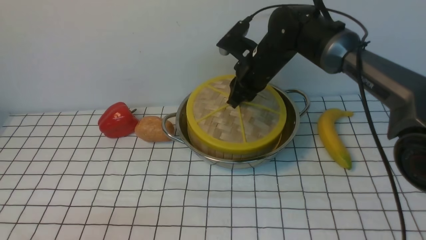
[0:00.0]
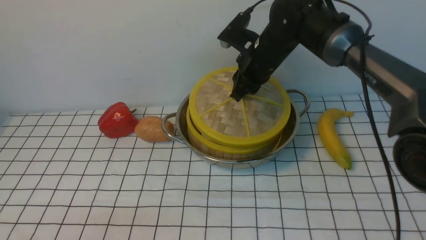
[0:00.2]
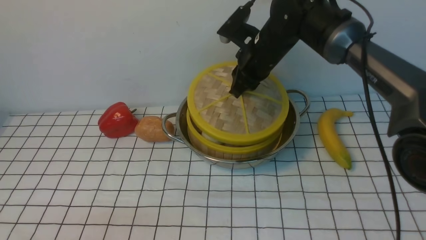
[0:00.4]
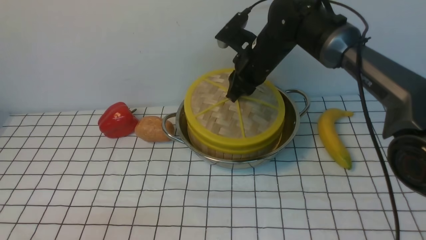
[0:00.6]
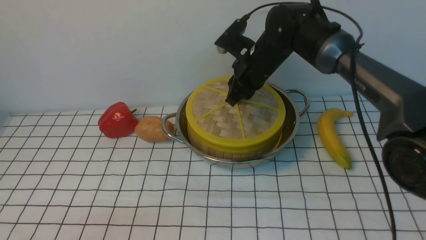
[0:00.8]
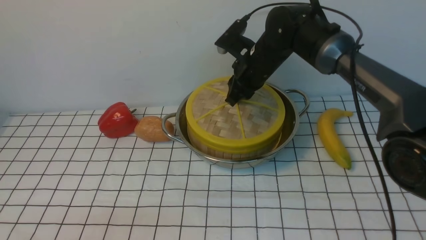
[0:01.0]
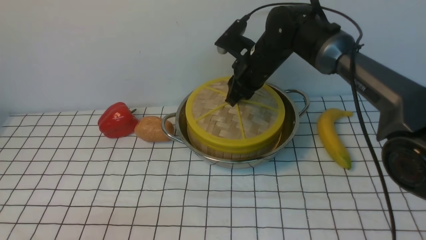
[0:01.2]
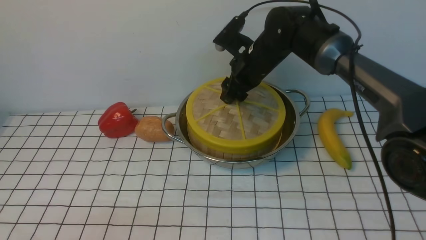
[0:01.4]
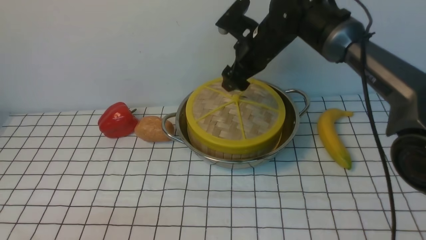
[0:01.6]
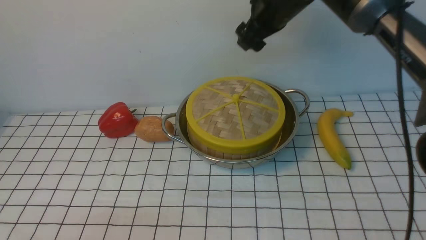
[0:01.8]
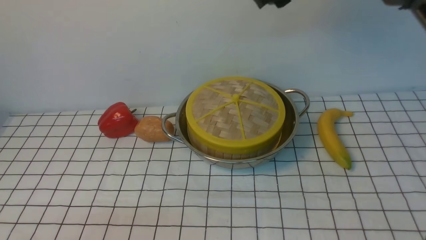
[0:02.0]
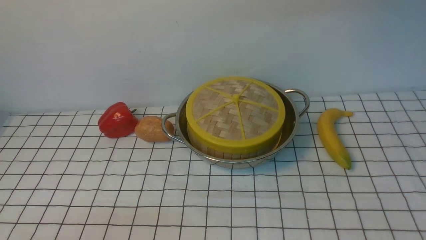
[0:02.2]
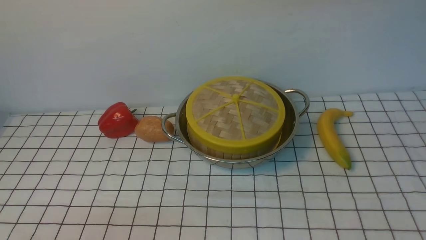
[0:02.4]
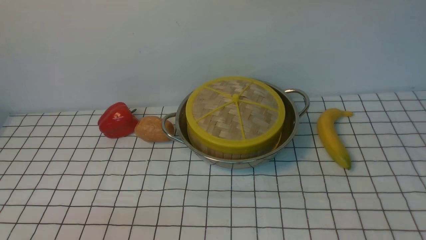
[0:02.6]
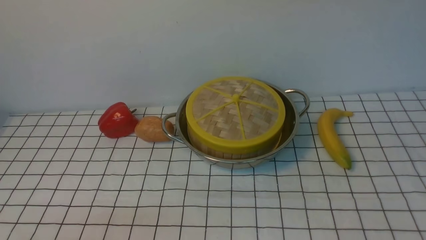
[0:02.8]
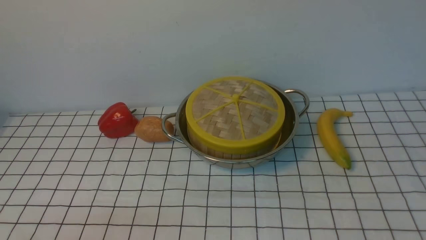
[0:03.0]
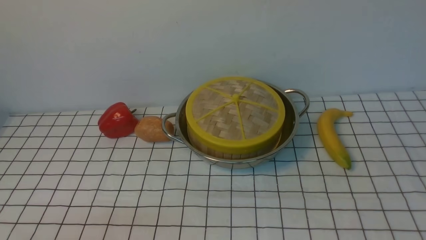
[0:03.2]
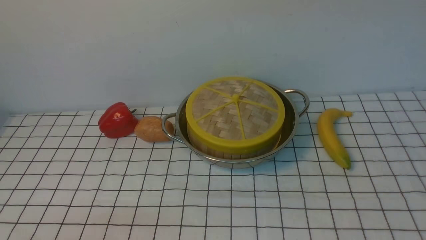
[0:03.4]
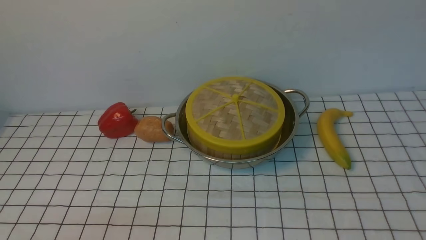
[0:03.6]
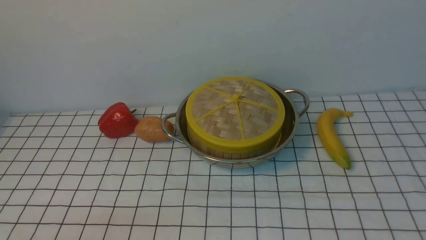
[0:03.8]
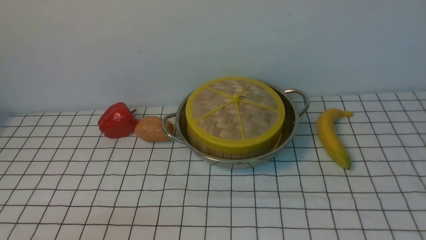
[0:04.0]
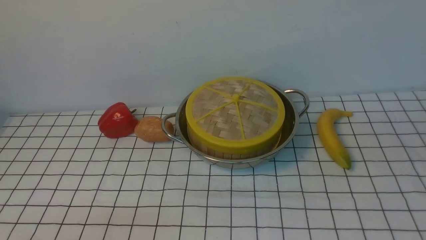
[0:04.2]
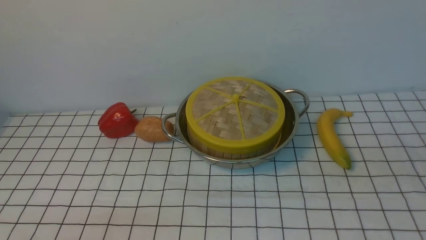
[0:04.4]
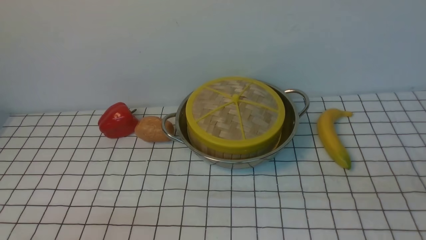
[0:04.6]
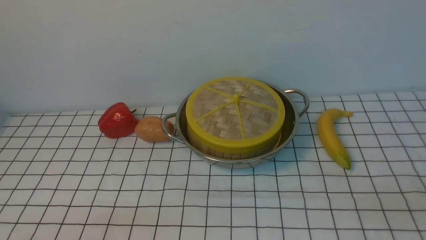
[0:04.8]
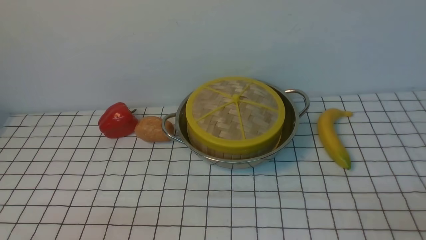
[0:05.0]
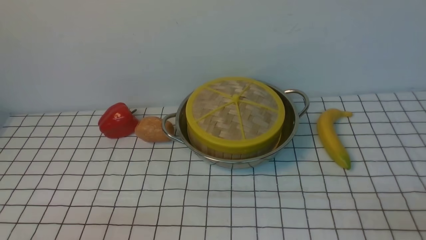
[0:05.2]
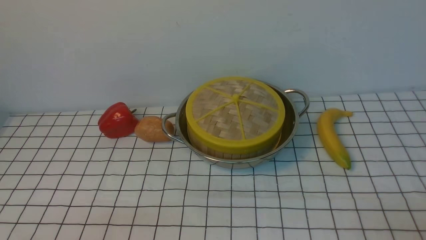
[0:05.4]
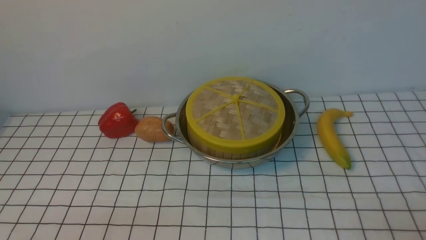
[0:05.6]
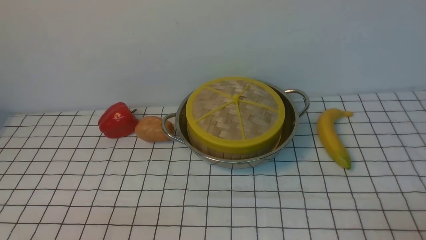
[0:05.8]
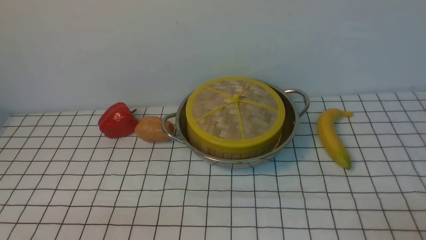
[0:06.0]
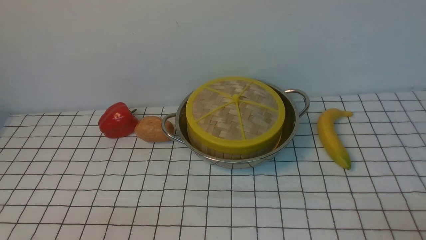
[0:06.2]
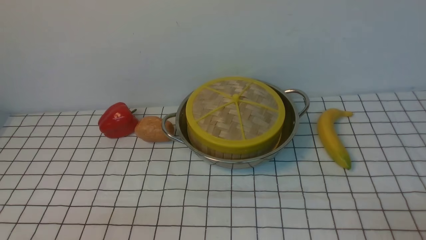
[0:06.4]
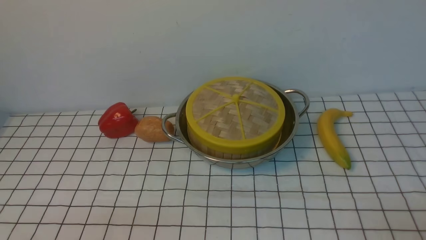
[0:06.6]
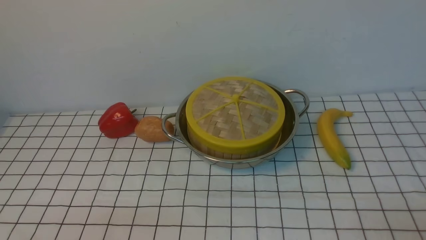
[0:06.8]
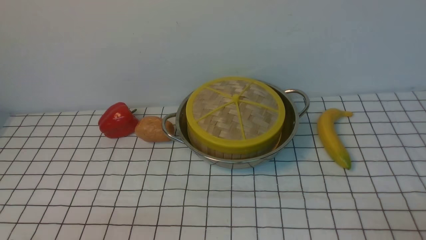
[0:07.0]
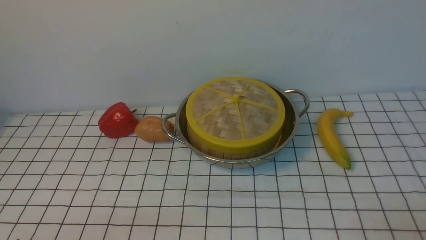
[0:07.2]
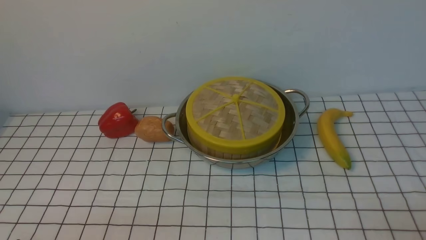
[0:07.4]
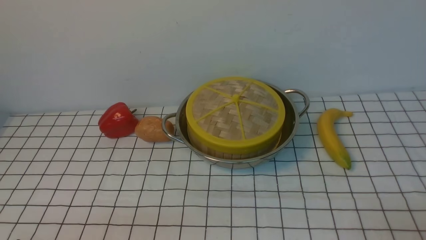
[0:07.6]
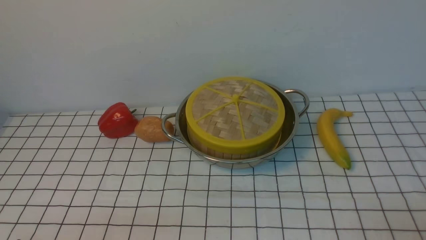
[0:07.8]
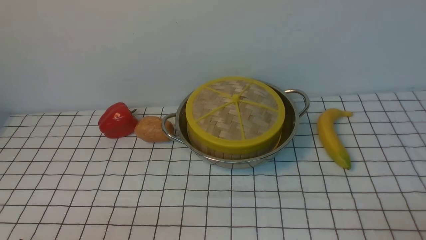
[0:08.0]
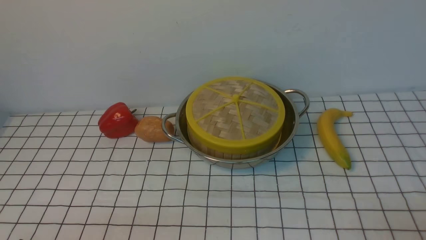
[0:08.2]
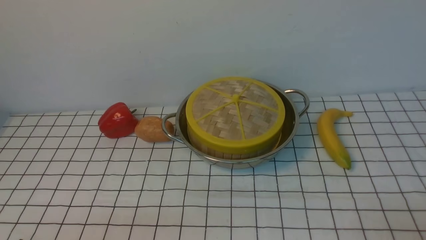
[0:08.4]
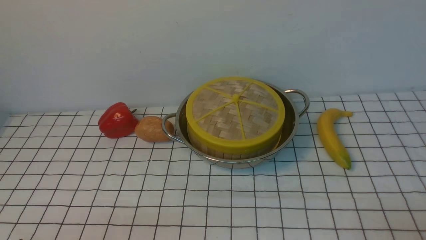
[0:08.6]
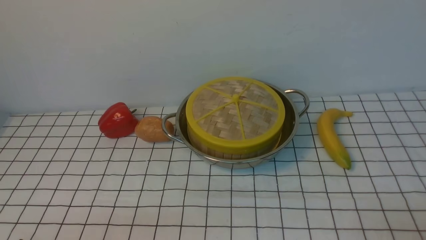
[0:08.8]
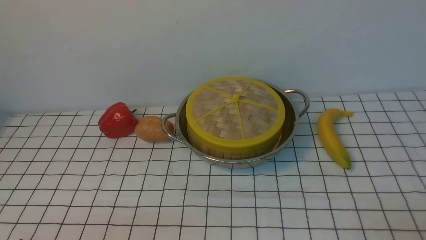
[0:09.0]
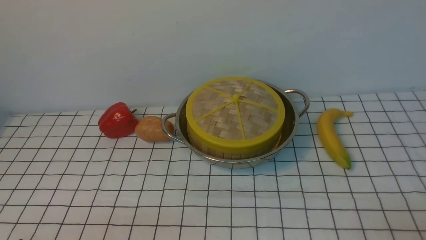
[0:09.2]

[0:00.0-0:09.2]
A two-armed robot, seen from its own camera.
Task of the whole recording: place the steamer in the pot on the white tablecloth, and put the lid on the steamer.
0:00.0 to 0:01.6: The right gripper opens its fingers.
0:01.6 to 0:03.0: The right gripper goes roughly 30 cm upward and backward, and closes its fingers.
0:07.6 to 0:09.2: The two grippers keep their place.

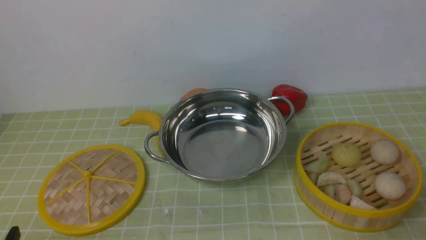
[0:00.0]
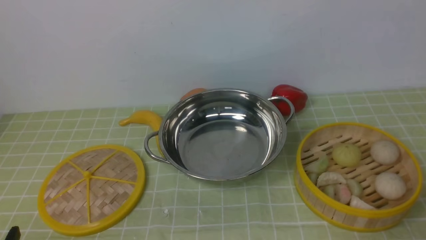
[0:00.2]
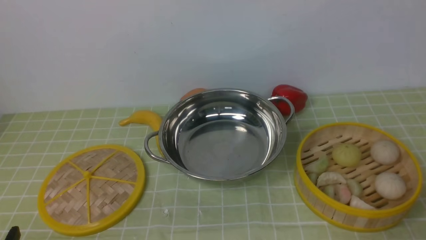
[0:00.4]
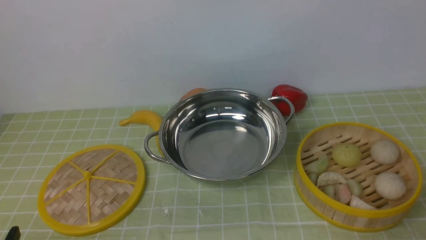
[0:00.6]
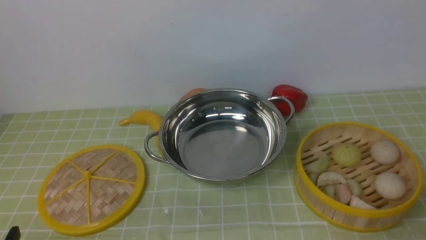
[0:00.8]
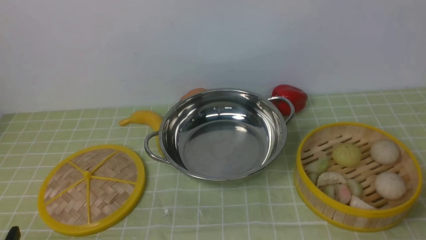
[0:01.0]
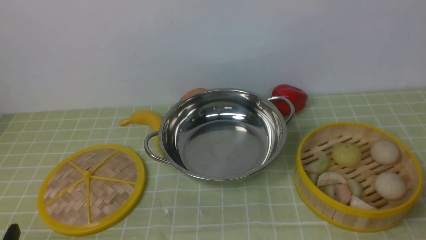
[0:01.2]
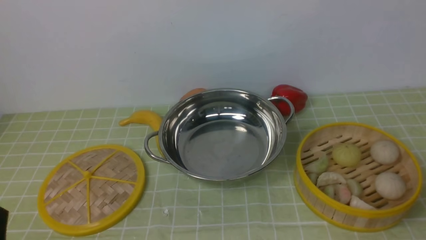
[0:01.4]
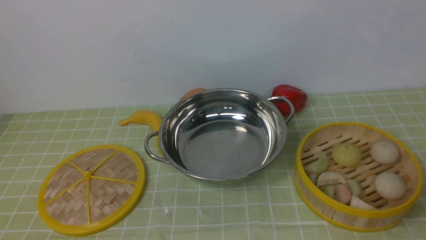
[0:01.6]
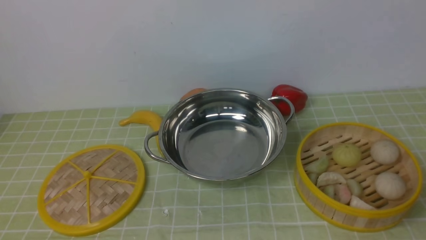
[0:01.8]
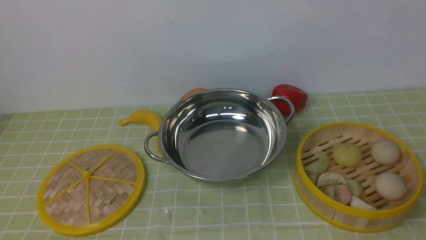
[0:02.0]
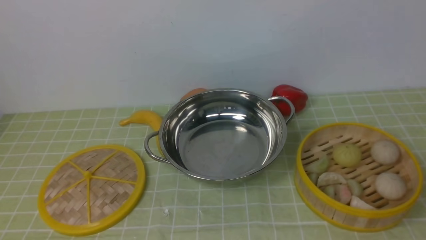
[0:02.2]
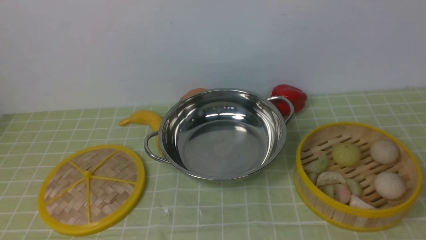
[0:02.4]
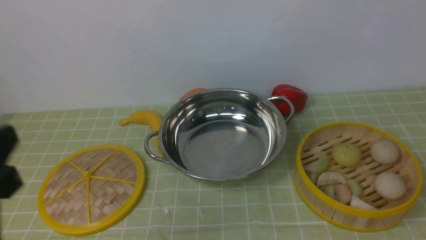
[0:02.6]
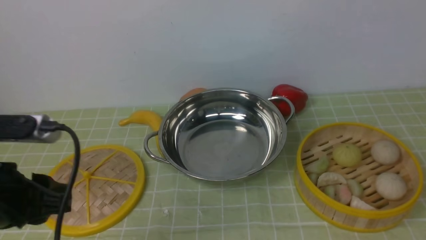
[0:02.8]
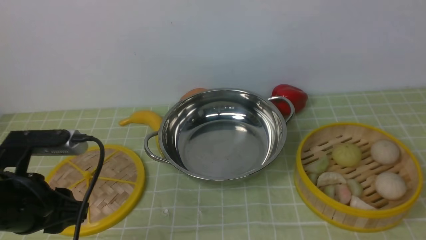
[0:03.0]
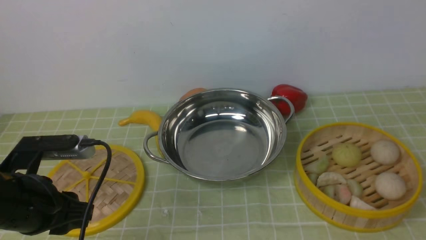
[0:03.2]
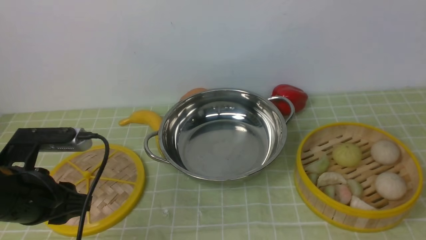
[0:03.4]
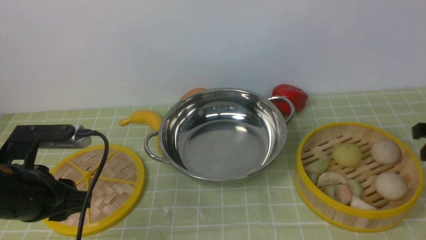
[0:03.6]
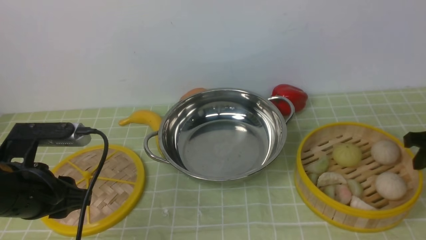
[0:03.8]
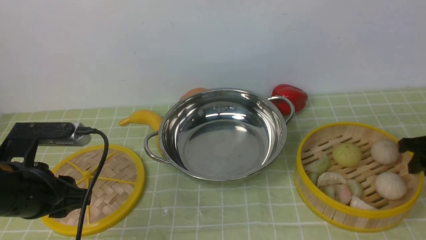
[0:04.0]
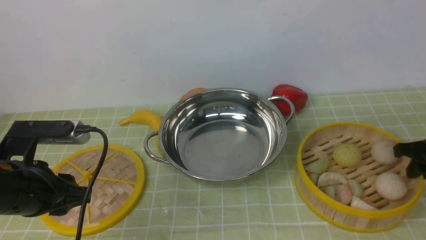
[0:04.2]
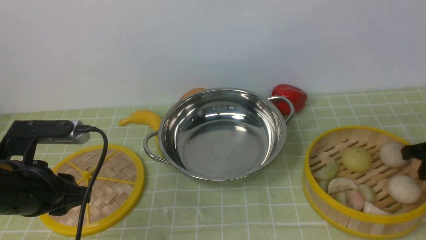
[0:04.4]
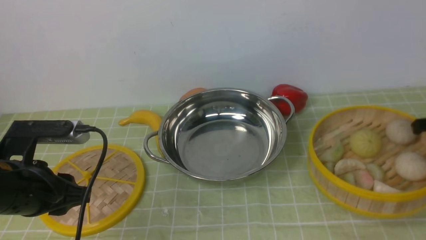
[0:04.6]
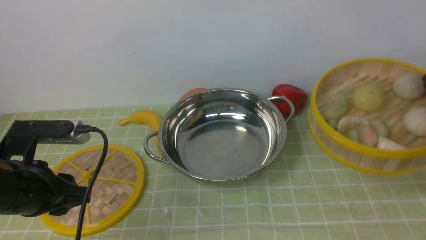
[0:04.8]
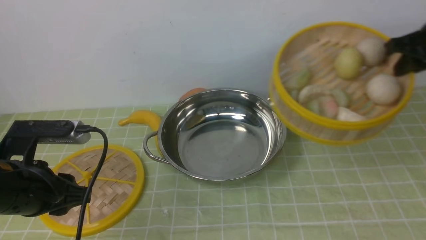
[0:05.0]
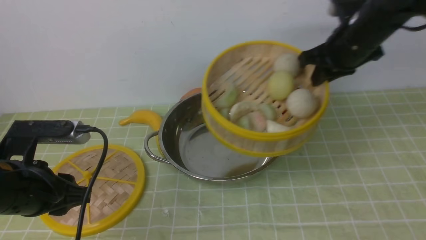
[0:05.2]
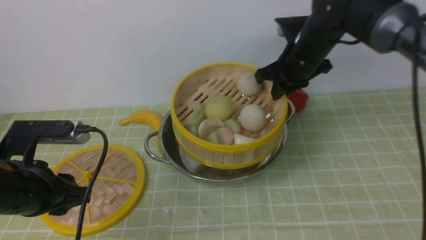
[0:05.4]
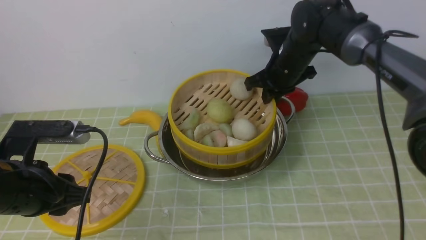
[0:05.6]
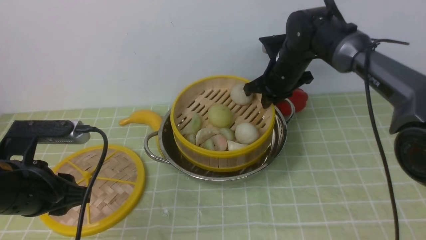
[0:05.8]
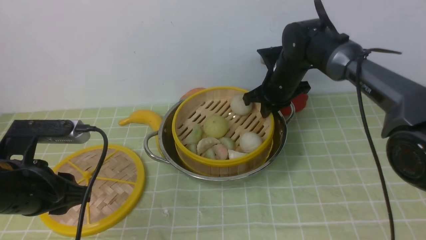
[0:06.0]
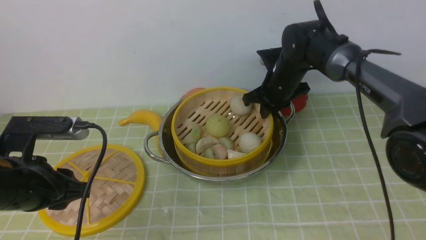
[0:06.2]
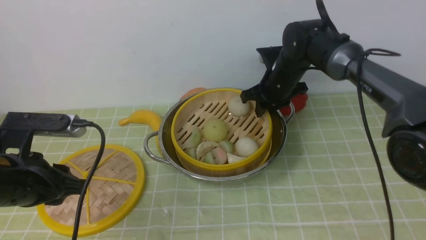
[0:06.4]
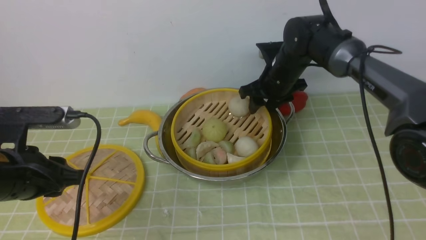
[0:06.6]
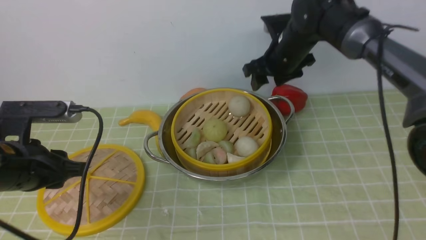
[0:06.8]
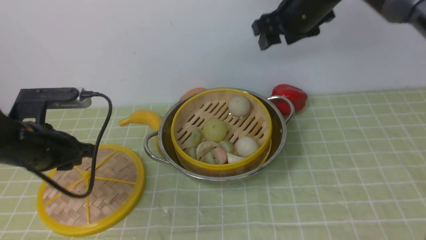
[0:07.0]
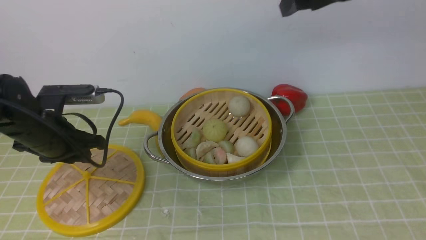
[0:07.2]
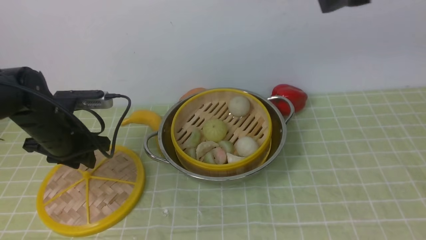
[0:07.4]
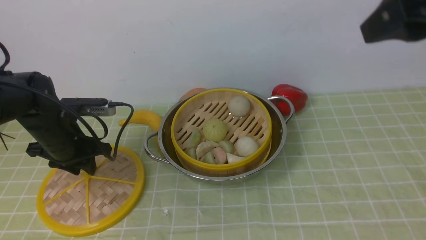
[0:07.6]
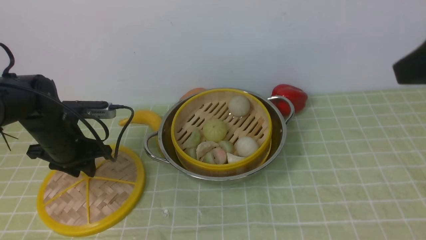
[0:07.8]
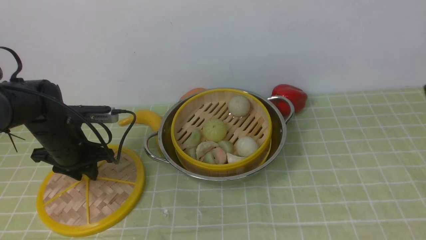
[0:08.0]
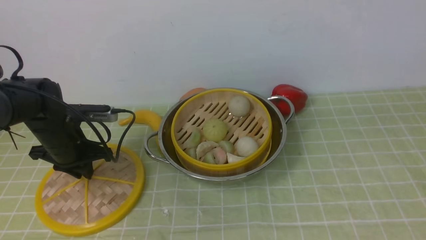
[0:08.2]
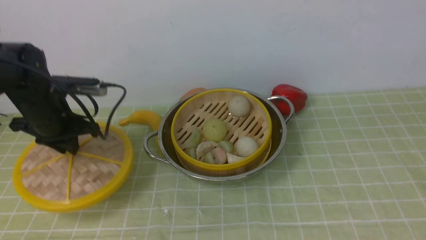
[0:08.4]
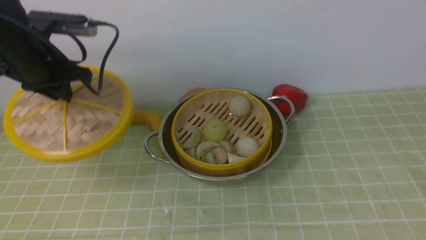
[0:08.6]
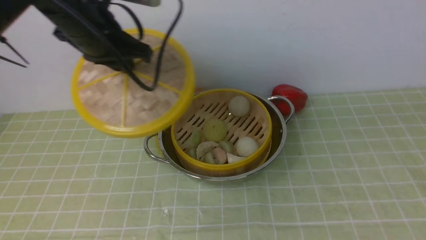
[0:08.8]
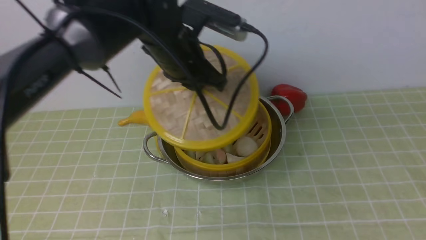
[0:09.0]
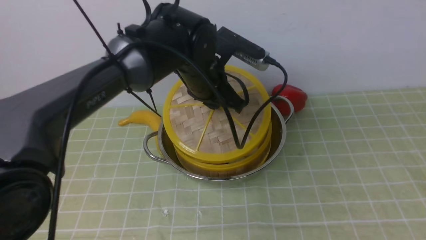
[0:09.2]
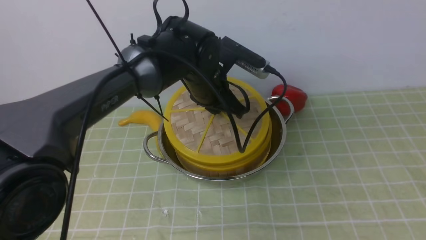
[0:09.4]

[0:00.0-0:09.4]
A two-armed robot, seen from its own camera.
Task of the whole recording: place the steamer in the pot on the green tablecloth, and put the lid on the steamer.
Step, 0:00.0 to 0:05.0: use the right arm to lift the steamer closest to it.
Step, 0:05.2 to 0:07.6: use the right arm to put the steamer into the iron steamer pot in the middle.
Step, 0:07.8 to 0:08.8: use the left arm to lift the lid of the steamer.
0:01.6 to 0:03.2: The left gripper shifts roughly 15 cm forward.
0:03.2 to 0:04.8: The right gripper travels forward by approximately 10 cm, goes downward and returns, roughly 15 cm each way, and closes up.
0:04.8 to 0:06.2: The right gripper is displaced to the left, forward and downward by roughly 30 cm.
0:06.2 to 0:07.8: The left gripper travels forward and downward by approximately 15 cm. The right gripper shifts some 40 cm backward, upward and to the right, and opens its fingers.
0:07.8 to 0:09.4: The left gripper moves to the right, some 25 cm, while the right gripper goes some 5 cm backward.
